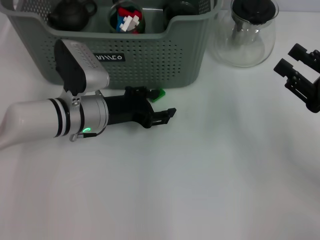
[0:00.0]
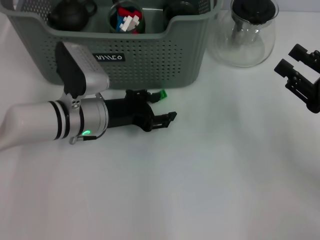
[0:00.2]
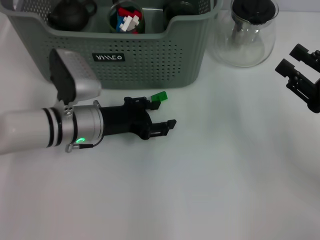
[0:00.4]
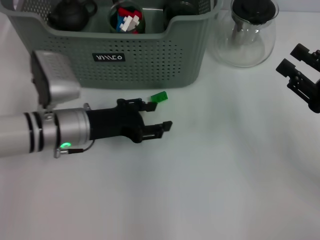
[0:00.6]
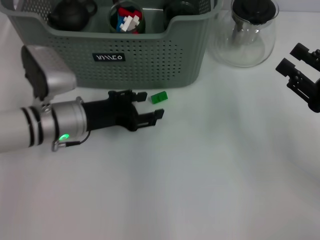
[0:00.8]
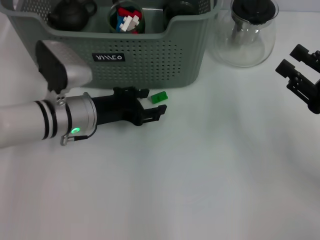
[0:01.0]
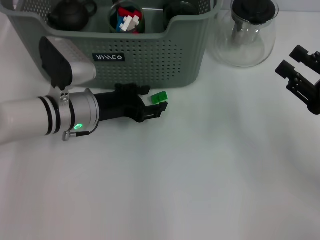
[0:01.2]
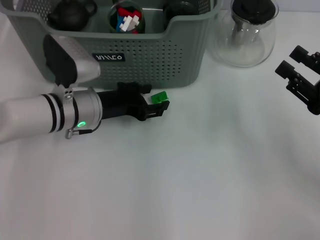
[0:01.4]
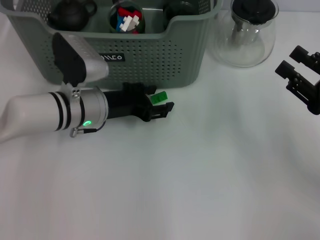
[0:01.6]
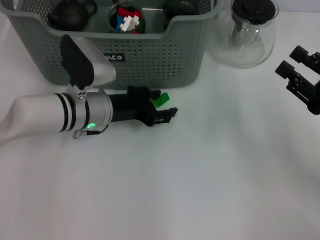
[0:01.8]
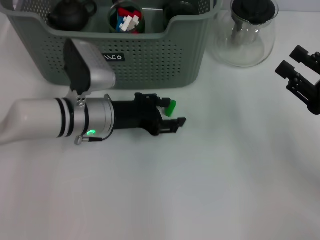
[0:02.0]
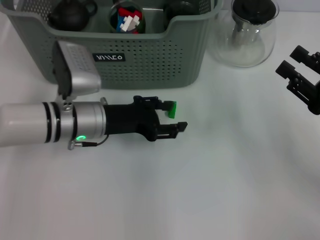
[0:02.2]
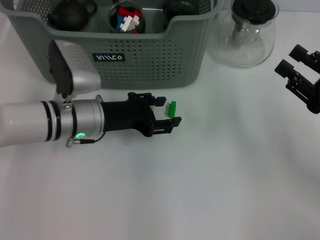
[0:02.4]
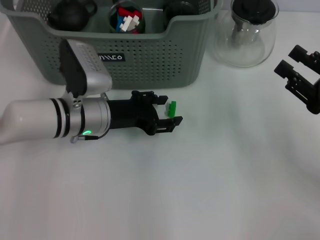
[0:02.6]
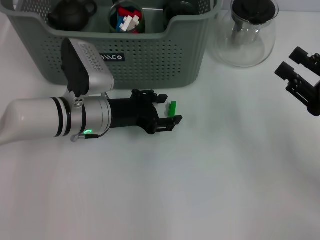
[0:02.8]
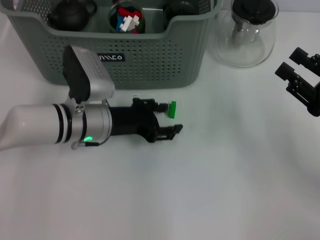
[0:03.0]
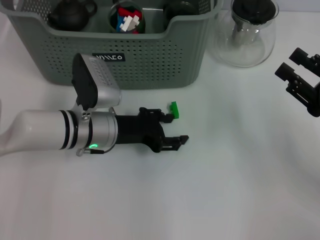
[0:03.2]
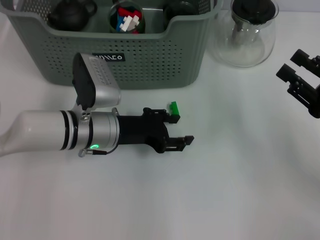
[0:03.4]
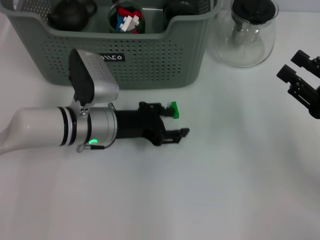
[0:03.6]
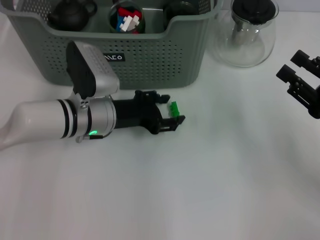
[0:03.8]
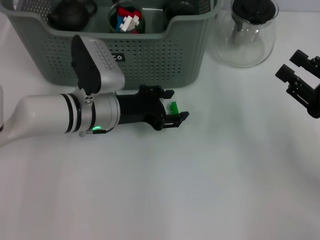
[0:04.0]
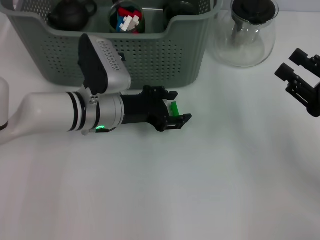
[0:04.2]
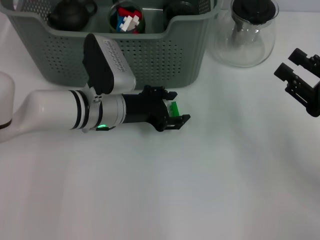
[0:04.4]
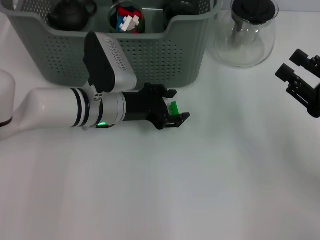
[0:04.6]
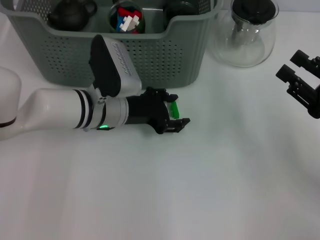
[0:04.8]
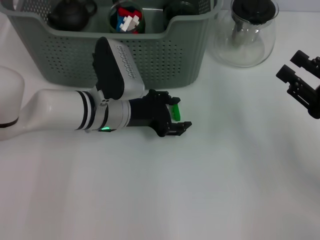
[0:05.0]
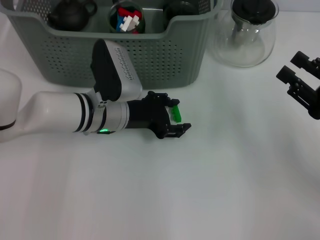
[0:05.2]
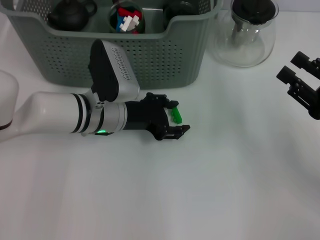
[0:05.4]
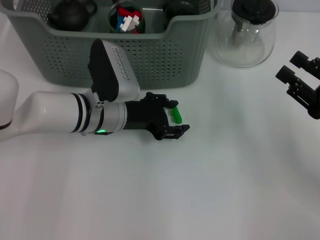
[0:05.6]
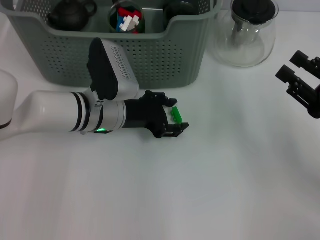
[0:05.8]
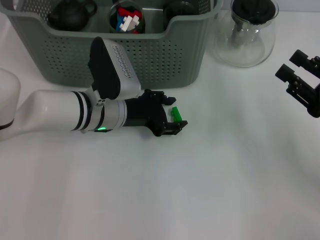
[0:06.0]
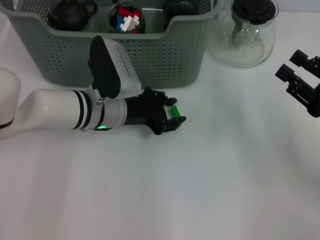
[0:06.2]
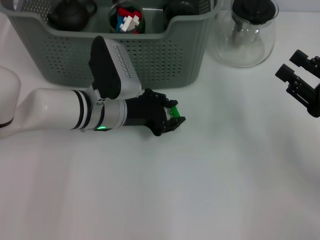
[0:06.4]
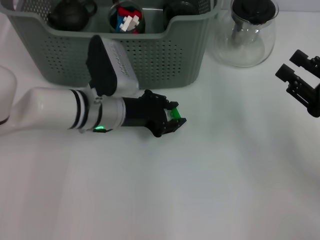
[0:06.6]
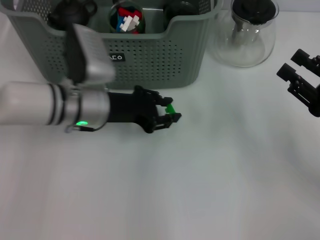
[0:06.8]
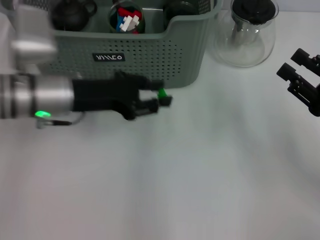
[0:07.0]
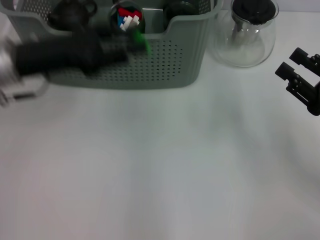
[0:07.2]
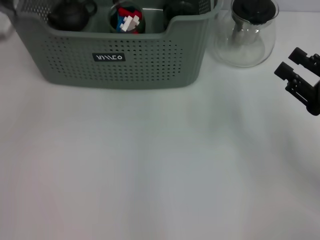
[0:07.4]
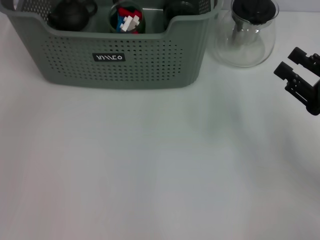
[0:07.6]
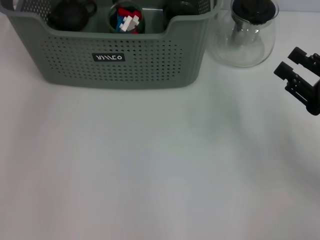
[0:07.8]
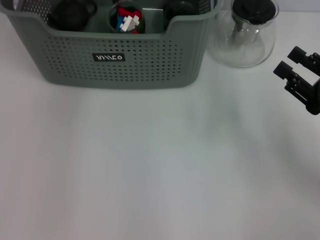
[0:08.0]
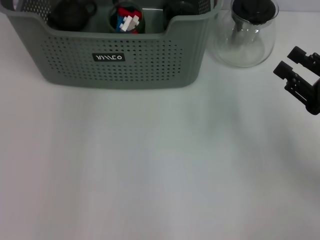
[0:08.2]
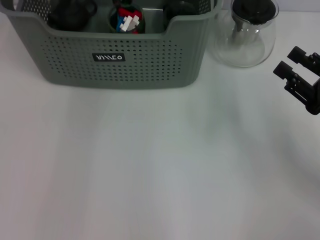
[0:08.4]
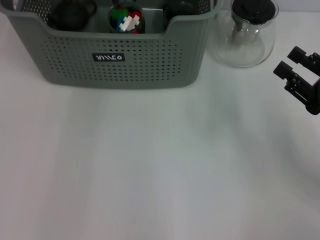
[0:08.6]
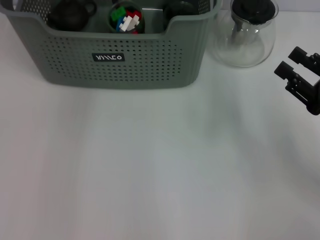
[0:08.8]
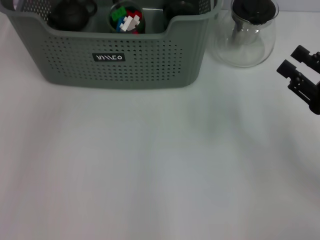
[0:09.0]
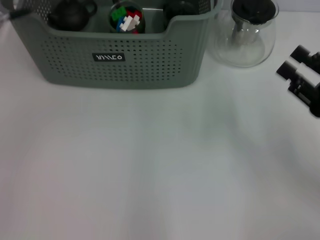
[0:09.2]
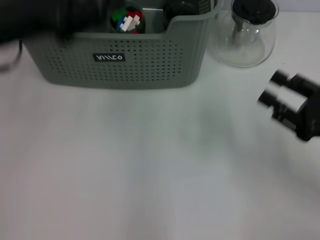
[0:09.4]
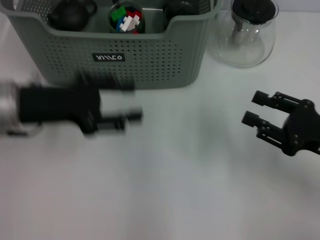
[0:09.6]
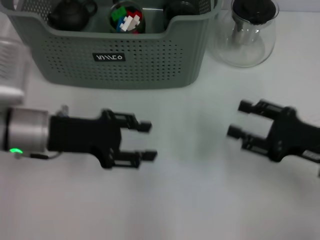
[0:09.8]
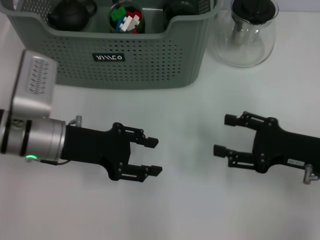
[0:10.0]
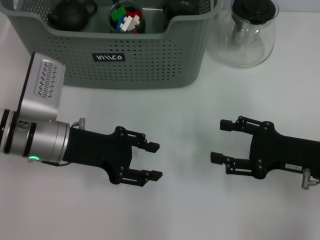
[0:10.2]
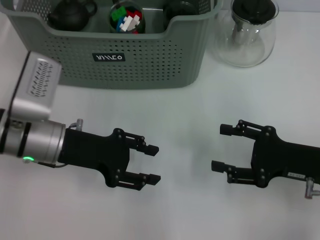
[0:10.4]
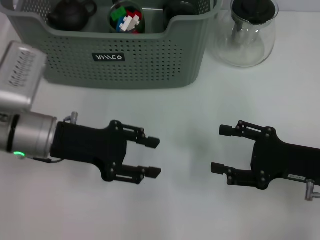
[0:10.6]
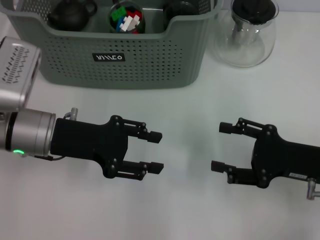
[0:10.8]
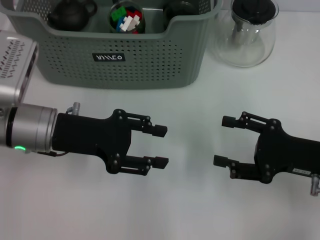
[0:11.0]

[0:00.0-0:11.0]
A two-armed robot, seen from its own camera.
Task of the whole recording: pick up the teacup on the table and place it into the storage bin, pick up the block on the table and place it into the storage bin.
Step, 0:00.0 to 0:06.6: Grasp the green block with left gripper.
Step, 0:06.8 to 0:09.0: Place the green block in the storage box with left gripper.
0:00.0 to 0:04.8: The grippers move only a little.
0:04.8 to 0:06.2: Both grippers stay put.
0:06.2 to 0:07.8: The left gripper goes about 25 cm upward, forward and to the left.
0:07.8 to 0:09.4: The left gripper heads backward, covering some 15 cm.
0:09.4 to 0:11.0: The left gripper moves downward and to the right, approximately 10 cm.
